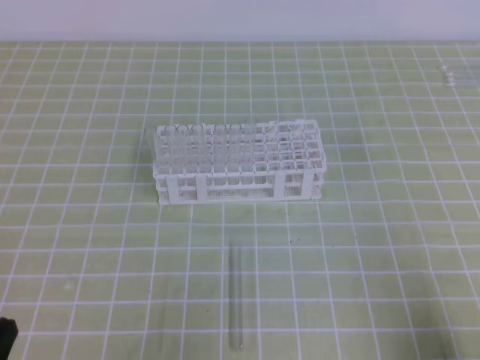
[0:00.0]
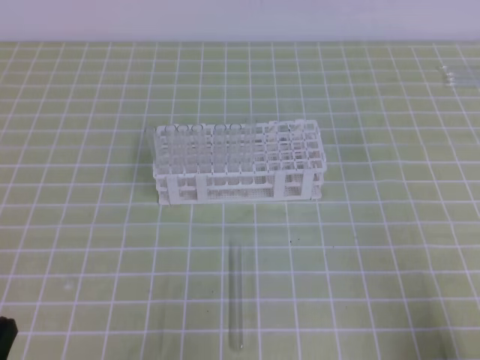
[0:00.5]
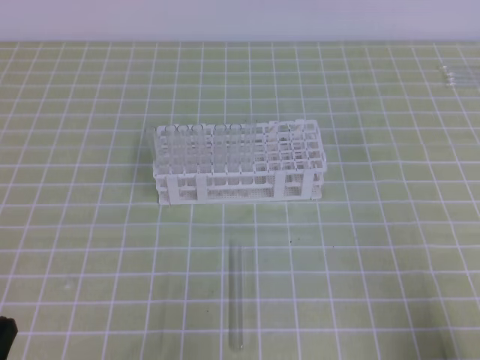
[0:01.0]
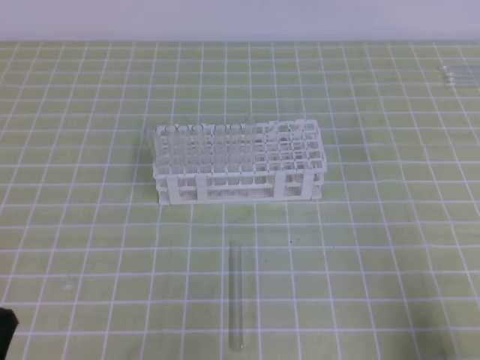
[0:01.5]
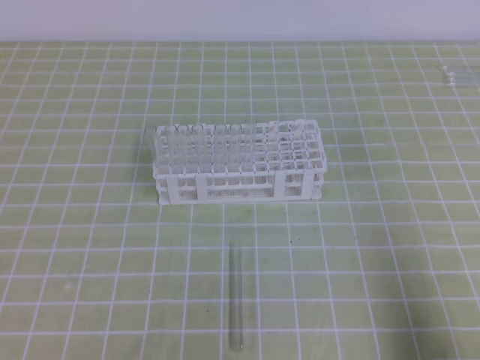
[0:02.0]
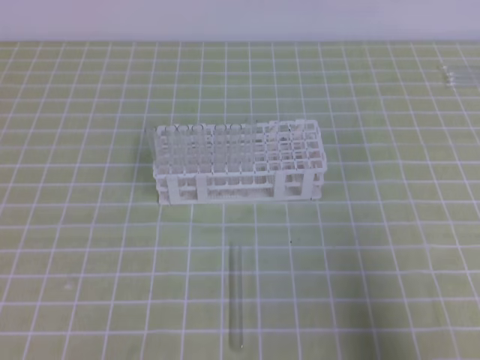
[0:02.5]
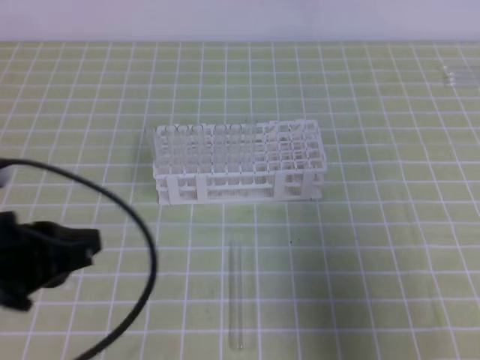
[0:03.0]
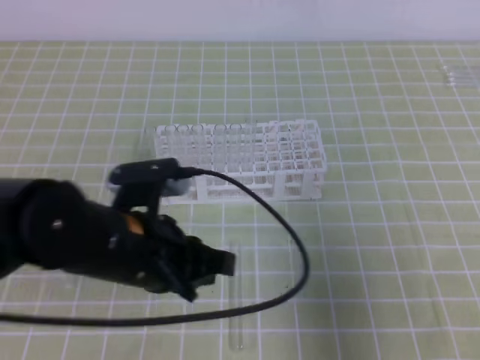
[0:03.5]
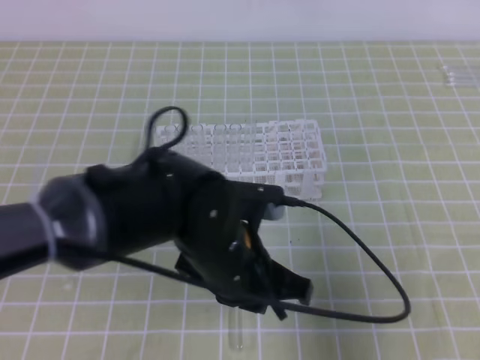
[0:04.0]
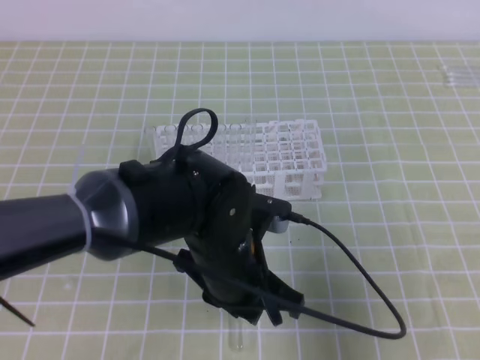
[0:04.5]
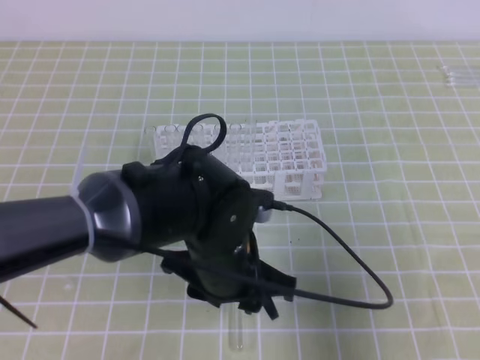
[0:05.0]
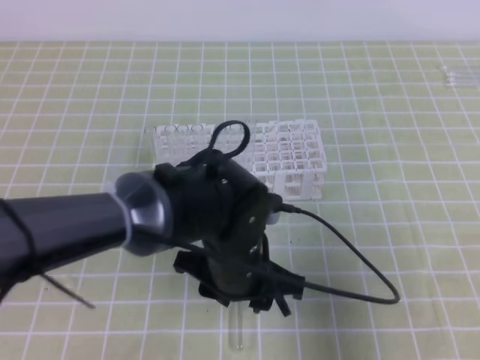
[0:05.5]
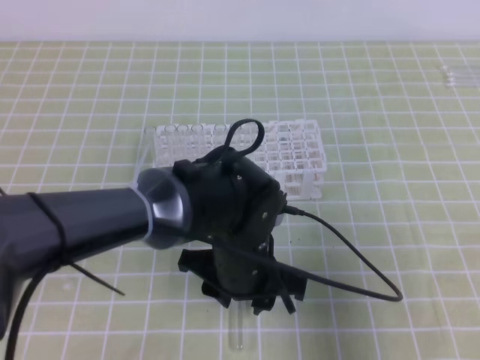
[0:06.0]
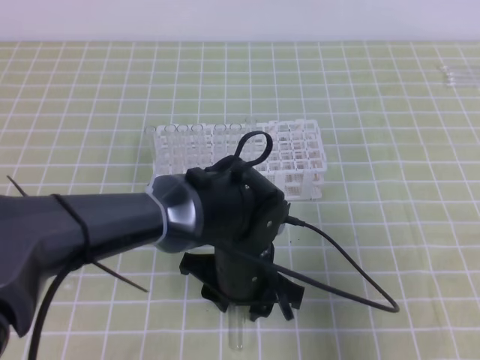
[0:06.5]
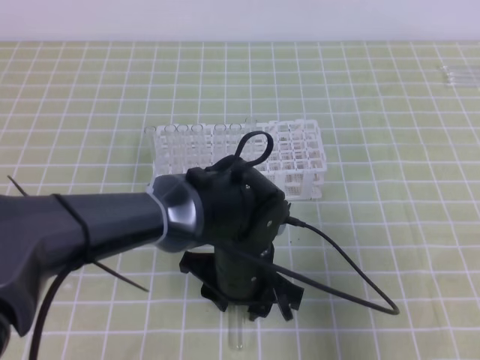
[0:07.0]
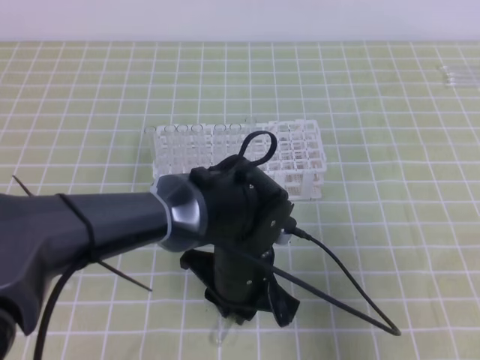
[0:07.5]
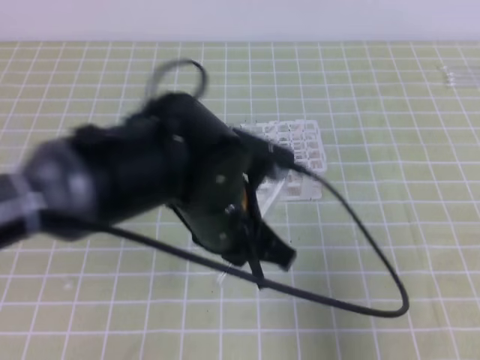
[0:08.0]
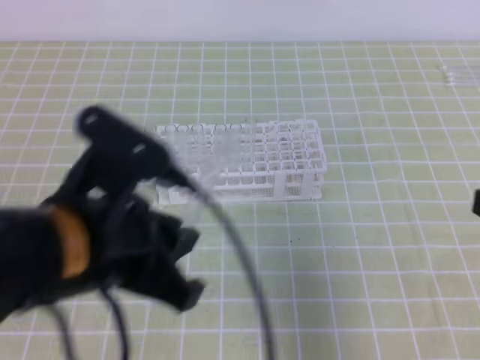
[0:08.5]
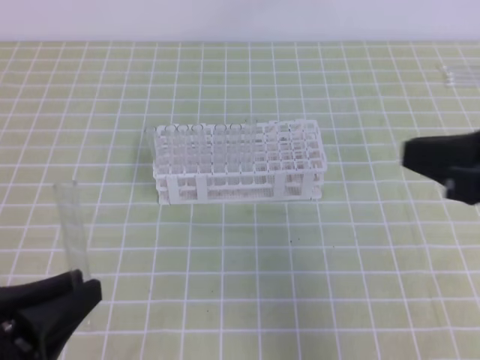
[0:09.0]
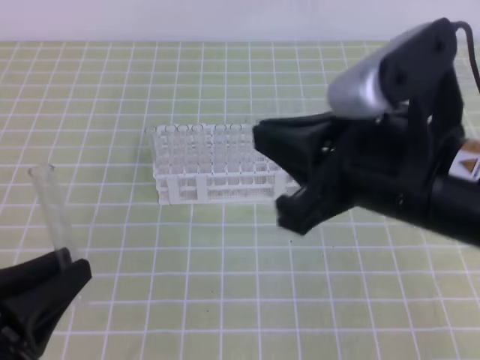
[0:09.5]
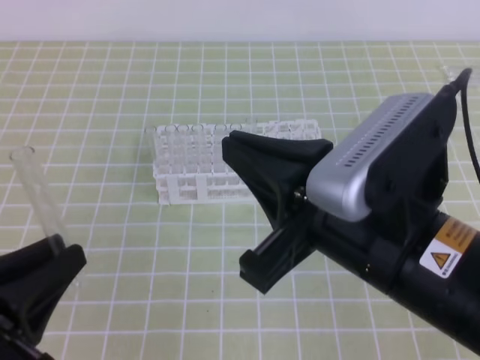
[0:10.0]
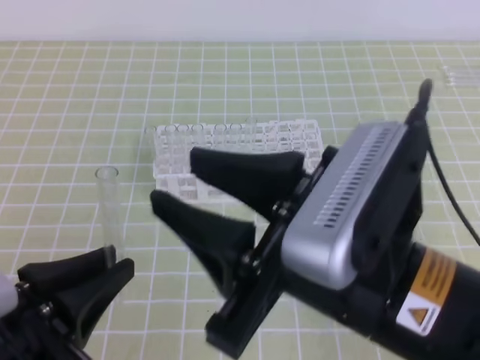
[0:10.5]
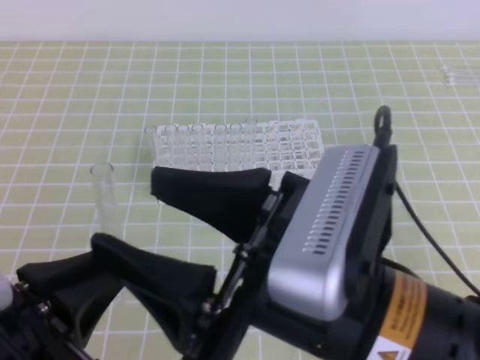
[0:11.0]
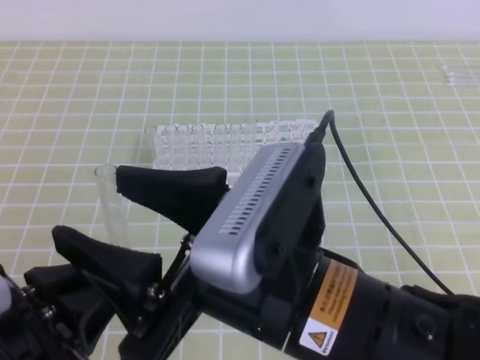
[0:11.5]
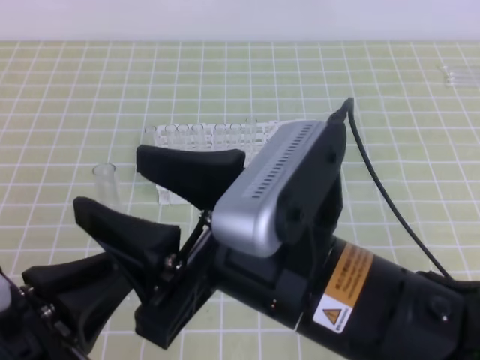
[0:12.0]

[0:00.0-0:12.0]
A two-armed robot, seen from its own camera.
0:02.0 to 0:04.0: The left gripper is displaced to the right and forward by approximately 30 cm, while the right gripper goes roughly 10 cm upward and forward.
0:04.0 to 0:06.0: The left gripper shifts by some 5 cm, and opens up.
0:06.0 to 0:08.0: The left gripper heads upward, covering about 10 cm, and closes.
0:08.0 to 0:10.0: The right gripper goes approximately 20 cm to the left, while the left gripper heads to the left and backward, covering approximately 25 cm.
0:10.0 to 0:12.0: The right gripper moves to the left, about 5 cm, and opens its fingers.

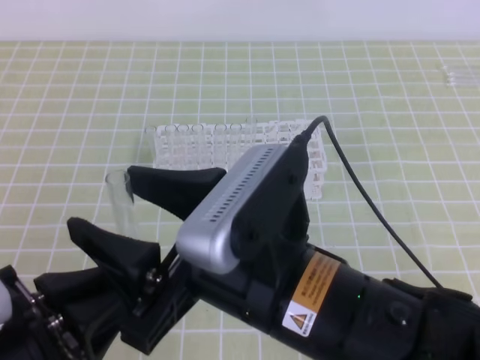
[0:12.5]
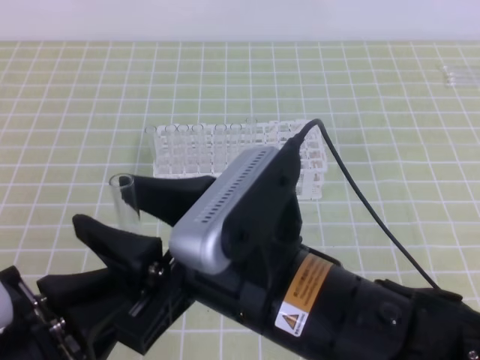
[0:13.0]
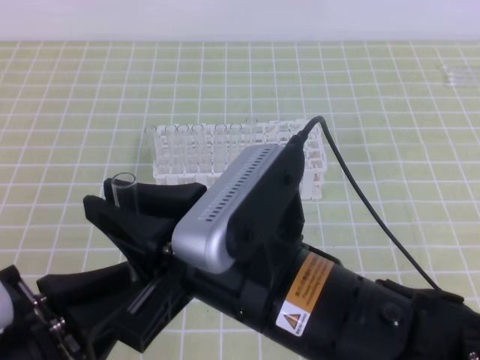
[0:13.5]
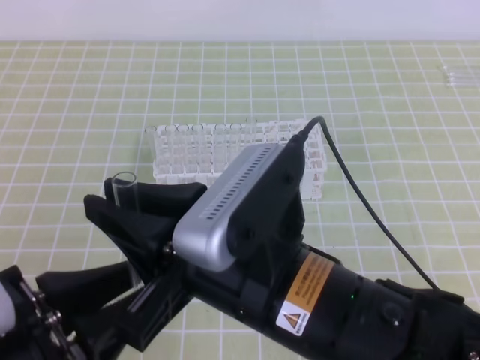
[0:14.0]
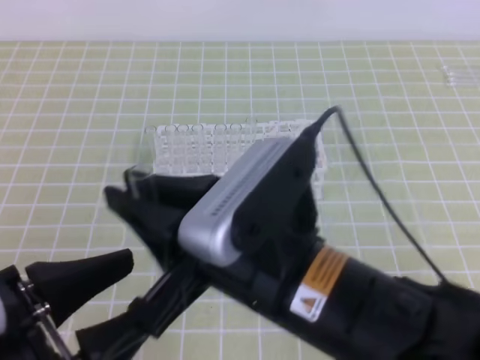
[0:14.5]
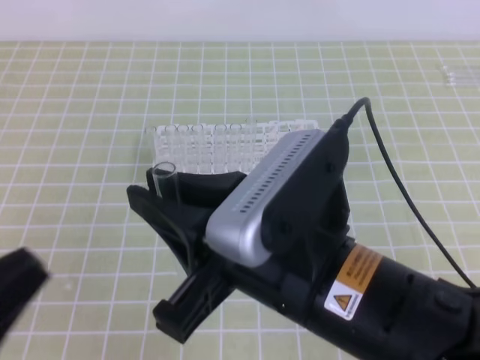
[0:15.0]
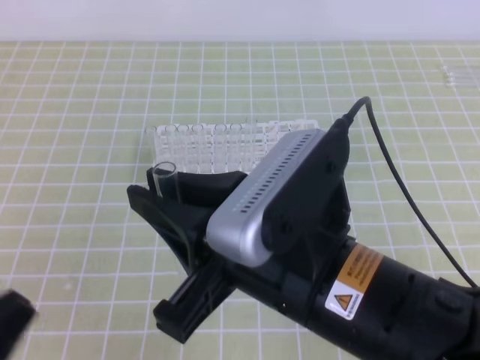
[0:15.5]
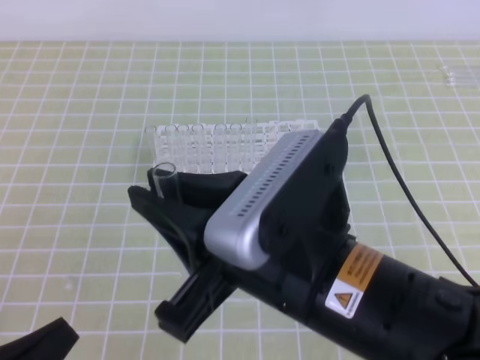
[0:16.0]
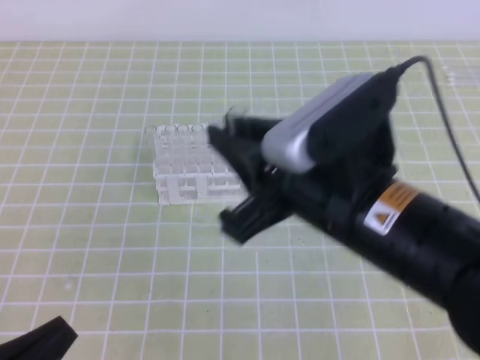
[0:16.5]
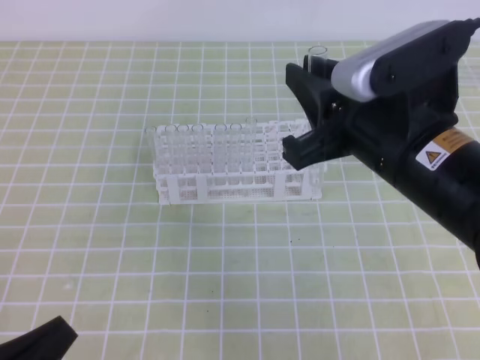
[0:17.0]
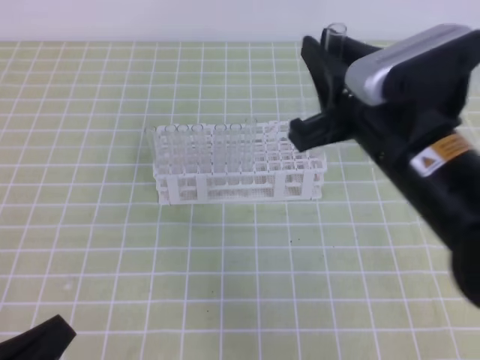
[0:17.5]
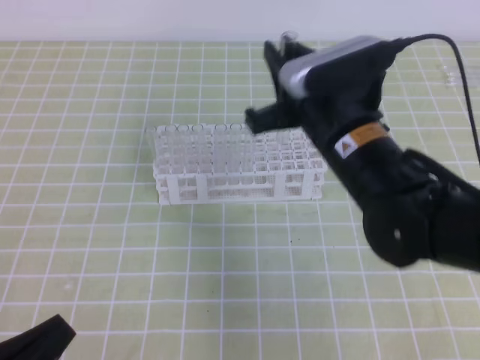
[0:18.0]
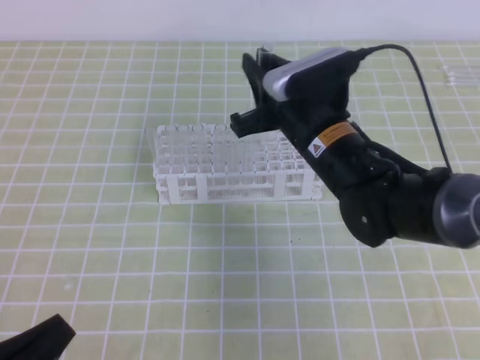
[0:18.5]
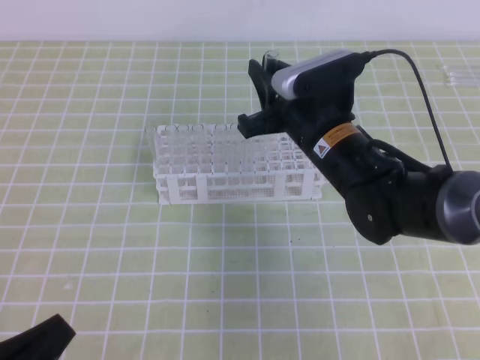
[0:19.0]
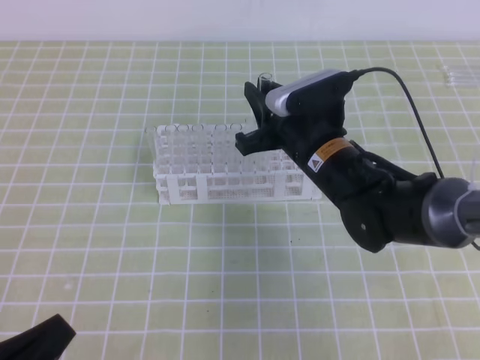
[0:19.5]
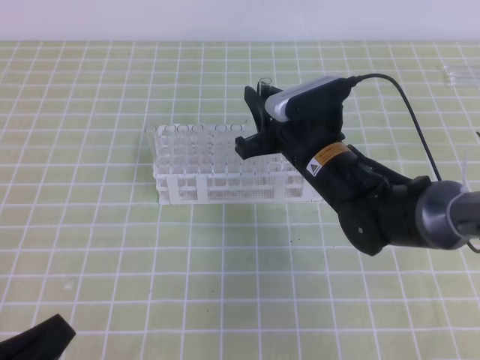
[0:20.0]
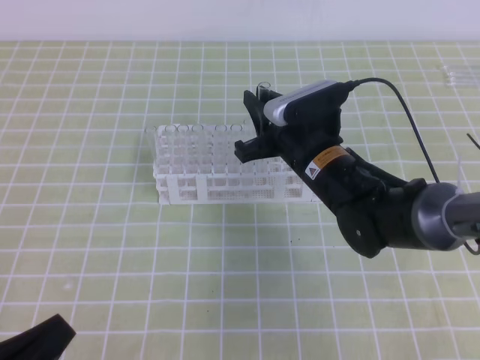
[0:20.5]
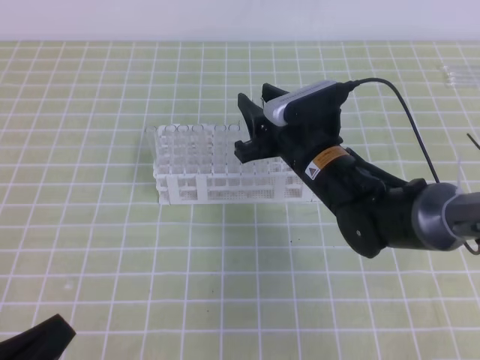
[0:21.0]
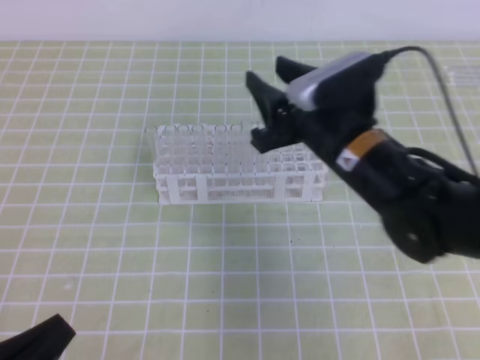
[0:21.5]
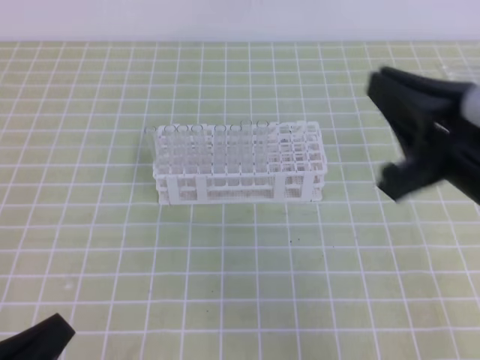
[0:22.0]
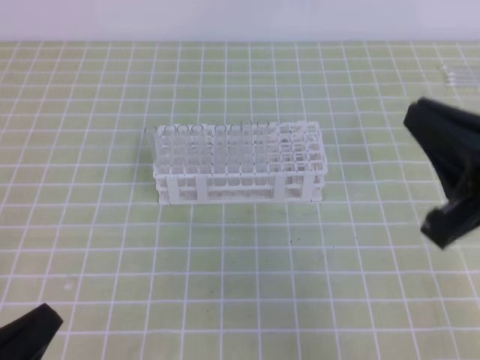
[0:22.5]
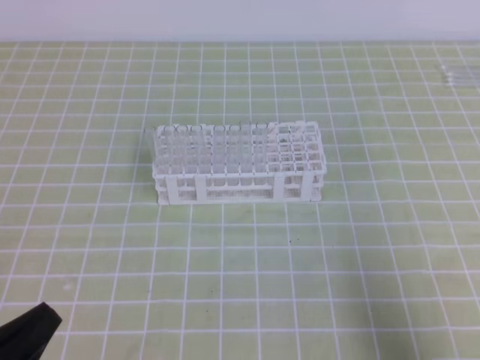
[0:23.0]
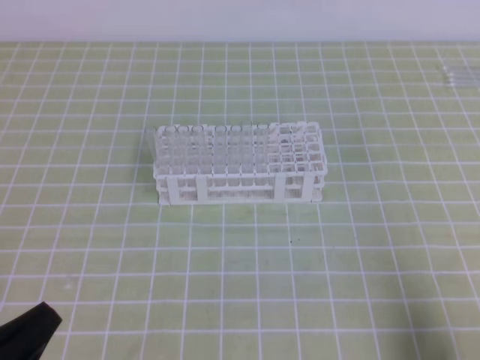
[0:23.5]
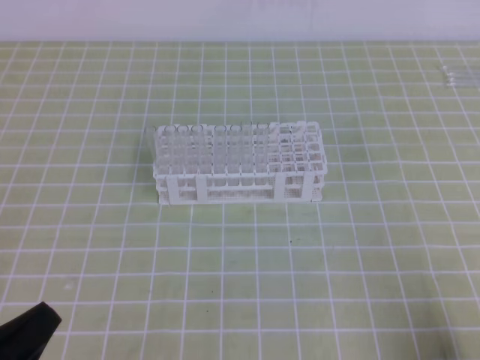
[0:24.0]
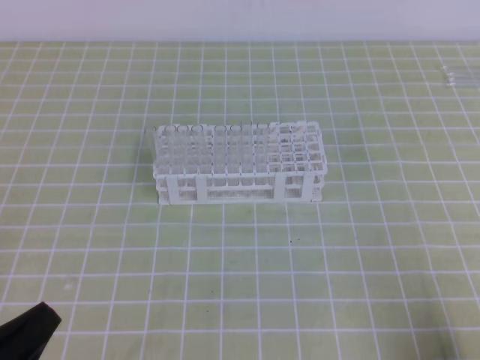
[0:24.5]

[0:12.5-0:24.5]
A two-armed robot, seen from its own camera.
0:12.5 to 0:14.5: The right gripper closes. Meanwhile the left gripper opens up.
0:14.5 to 0:16.5: The left gripper heads downward and to the left, covering some 10 cm, and closes, while the right gripper moves approximately 5 cm.
0:16.5 to 0:18.5: The right gripper moves forward and downward, about 20 cm.
0:18.5 to 0:20.5: The right gripper moves downward, approximately 5 cm.
0:20.5 to 0:22.5: The right gripper travels backward, to the right and upward by approximately 30 cm, and opens and closes again.
0:22.5 to 0:24.5: The right gripper travels downward, to the right and backward by roughly 20 cm.

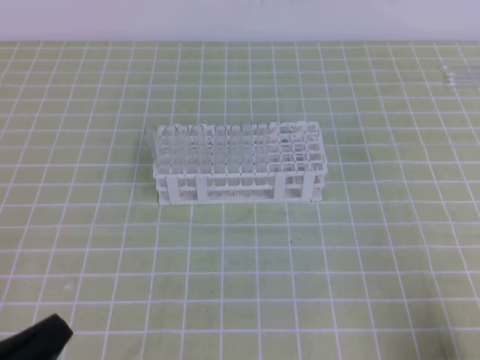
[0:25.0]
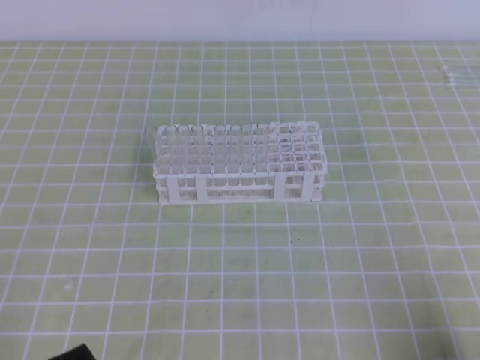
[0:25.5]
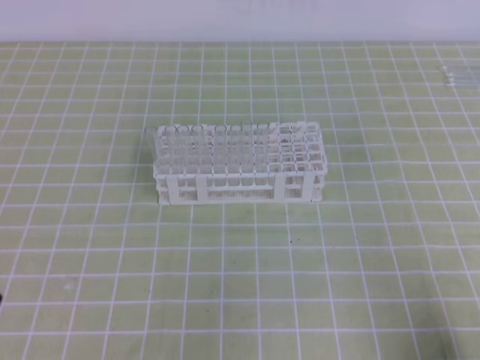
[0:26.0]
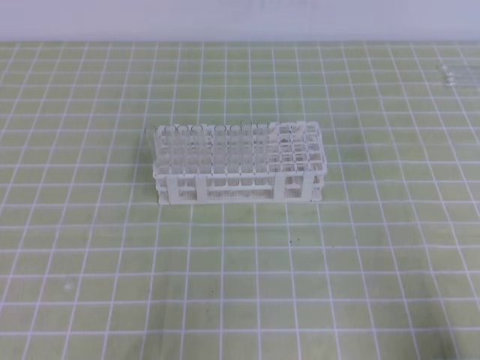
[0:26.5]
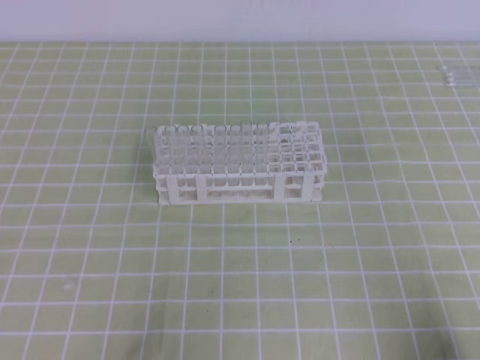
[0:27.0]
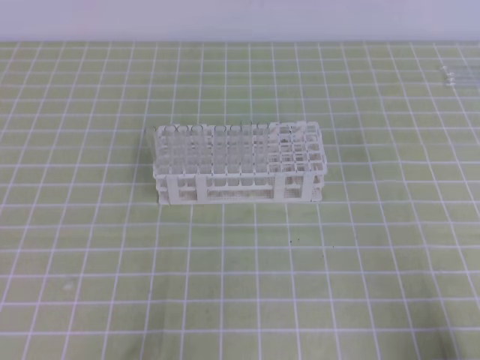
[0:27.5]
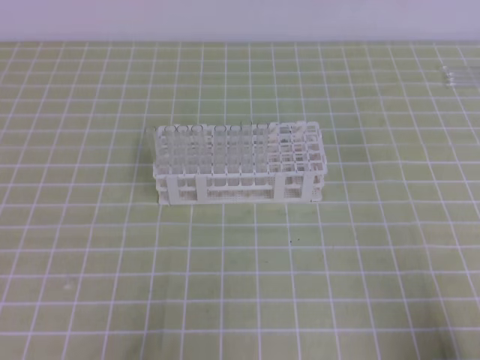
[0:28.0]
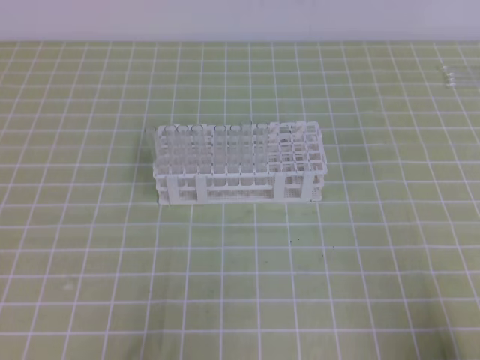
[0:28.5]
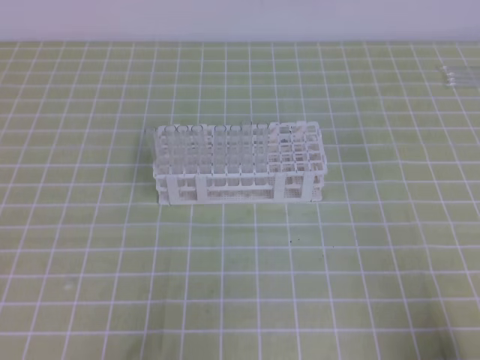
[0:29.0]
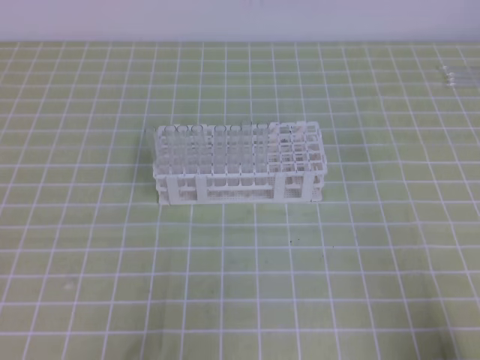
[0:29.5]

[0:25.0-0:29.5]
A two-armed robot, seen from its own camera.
0:27.0 to 0:29.5: Neither gripper changes place.
